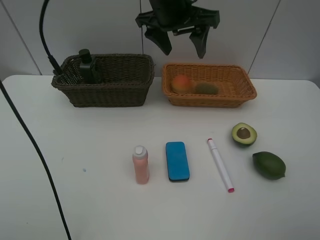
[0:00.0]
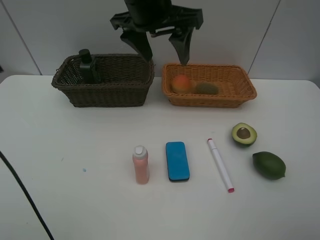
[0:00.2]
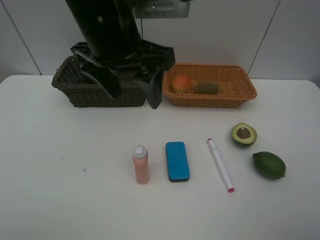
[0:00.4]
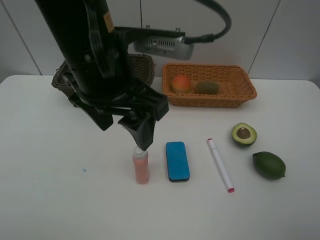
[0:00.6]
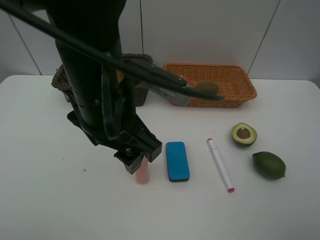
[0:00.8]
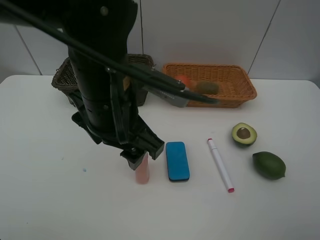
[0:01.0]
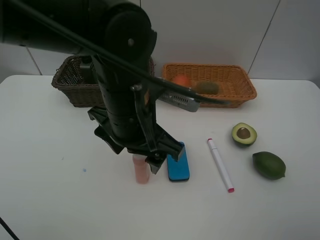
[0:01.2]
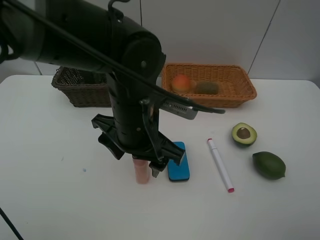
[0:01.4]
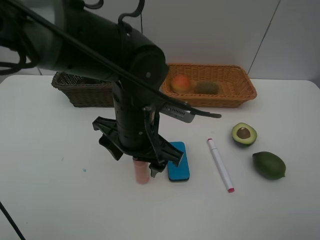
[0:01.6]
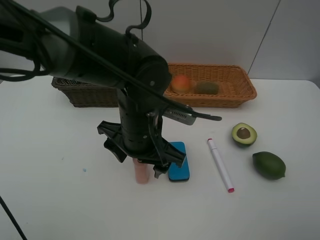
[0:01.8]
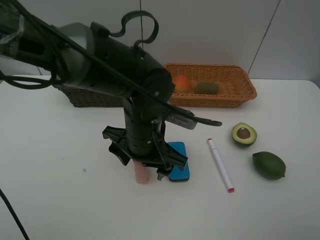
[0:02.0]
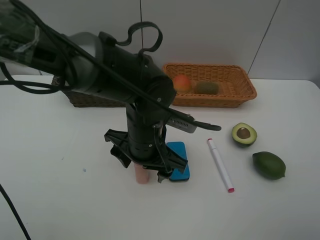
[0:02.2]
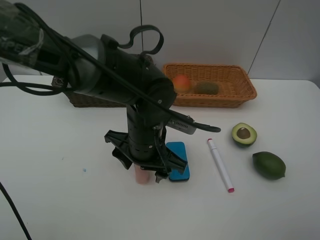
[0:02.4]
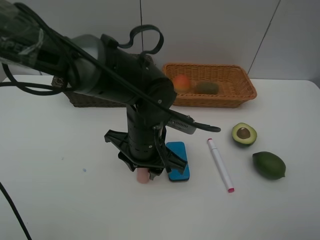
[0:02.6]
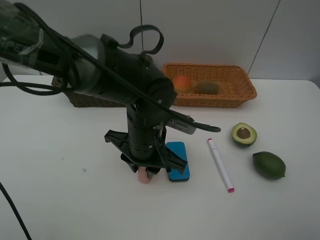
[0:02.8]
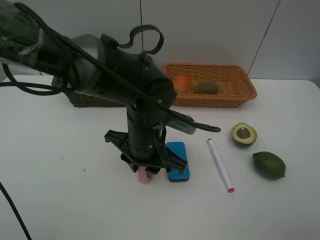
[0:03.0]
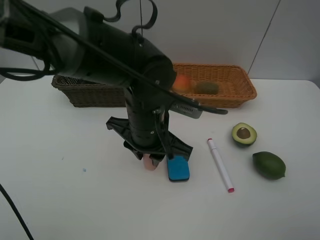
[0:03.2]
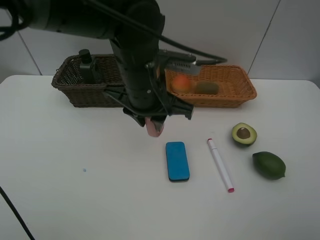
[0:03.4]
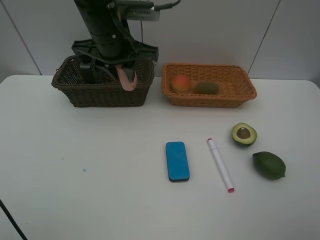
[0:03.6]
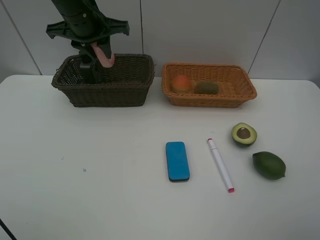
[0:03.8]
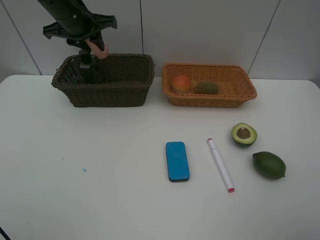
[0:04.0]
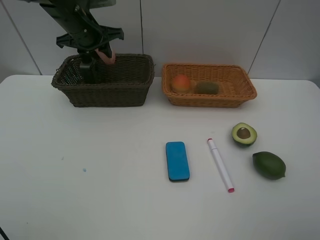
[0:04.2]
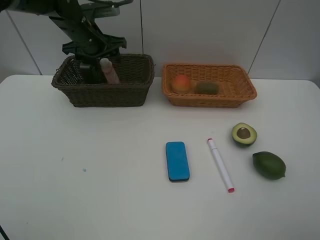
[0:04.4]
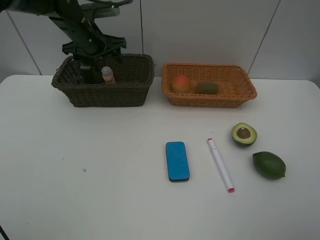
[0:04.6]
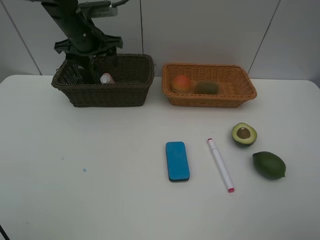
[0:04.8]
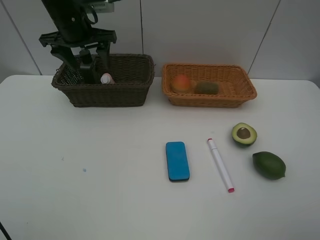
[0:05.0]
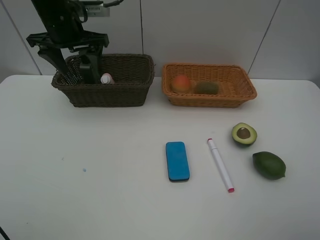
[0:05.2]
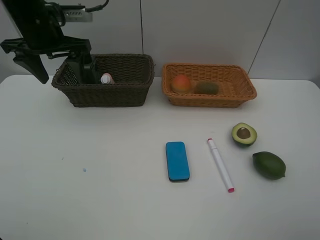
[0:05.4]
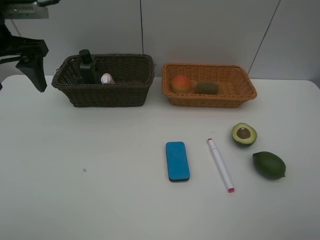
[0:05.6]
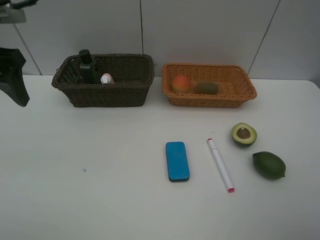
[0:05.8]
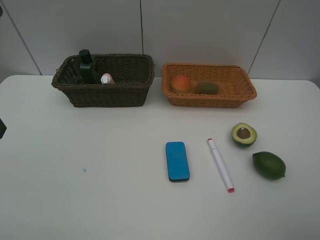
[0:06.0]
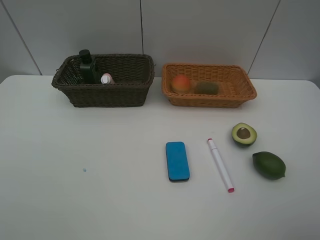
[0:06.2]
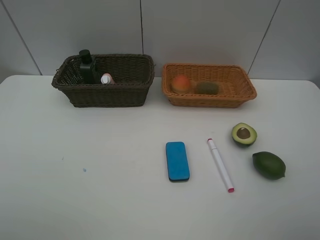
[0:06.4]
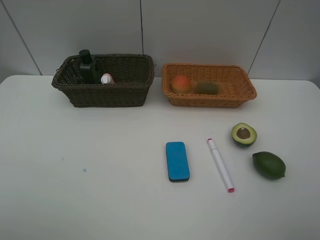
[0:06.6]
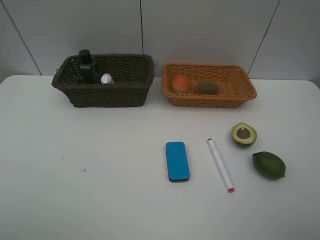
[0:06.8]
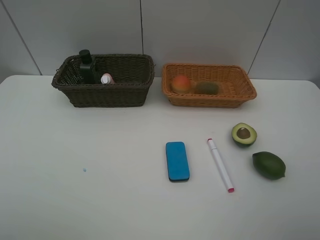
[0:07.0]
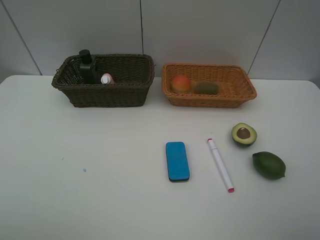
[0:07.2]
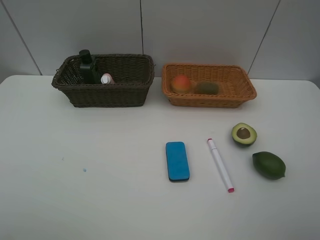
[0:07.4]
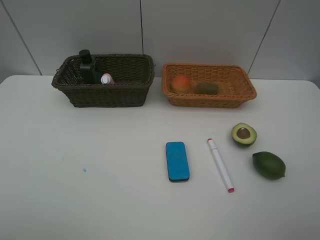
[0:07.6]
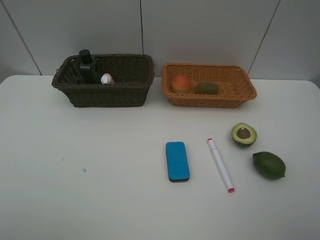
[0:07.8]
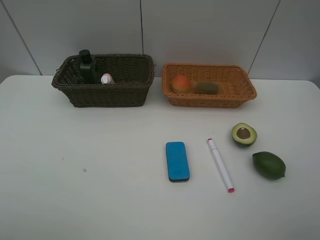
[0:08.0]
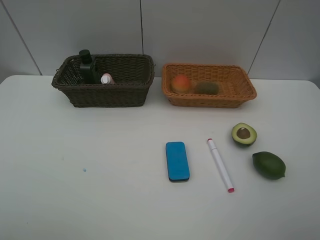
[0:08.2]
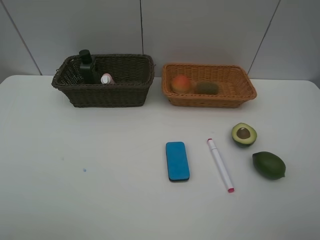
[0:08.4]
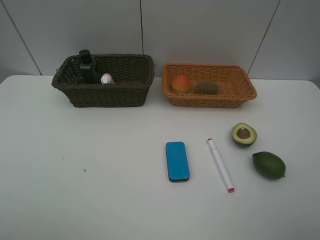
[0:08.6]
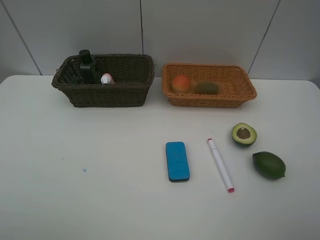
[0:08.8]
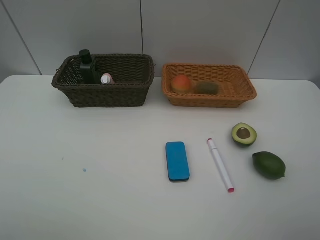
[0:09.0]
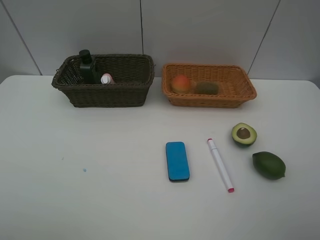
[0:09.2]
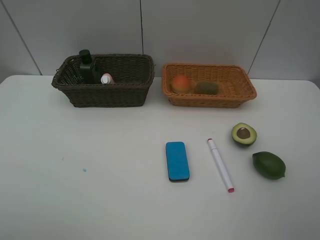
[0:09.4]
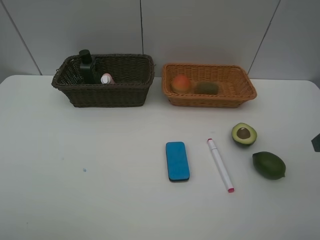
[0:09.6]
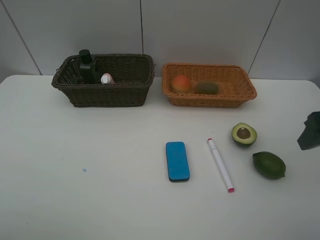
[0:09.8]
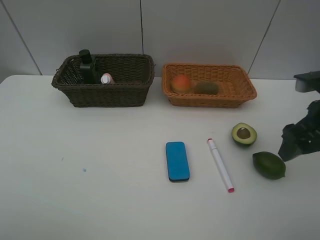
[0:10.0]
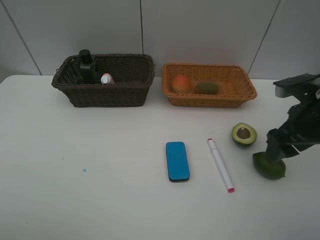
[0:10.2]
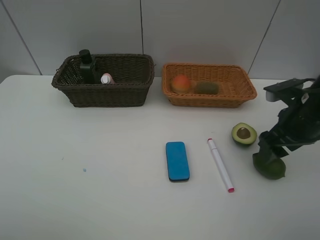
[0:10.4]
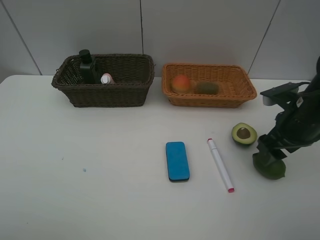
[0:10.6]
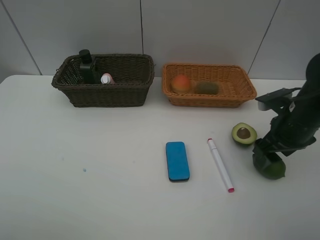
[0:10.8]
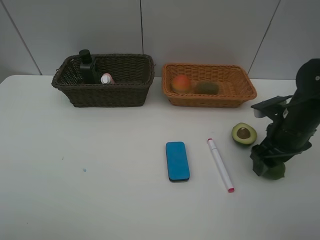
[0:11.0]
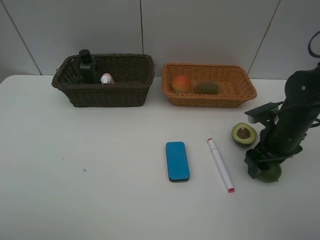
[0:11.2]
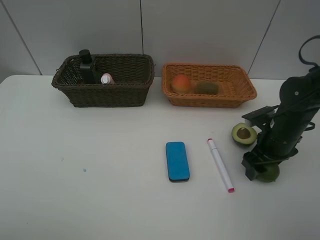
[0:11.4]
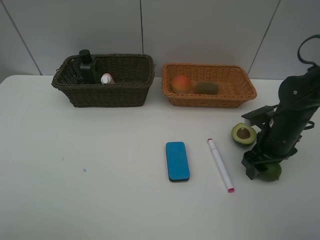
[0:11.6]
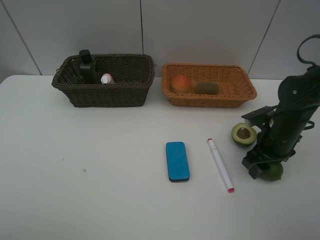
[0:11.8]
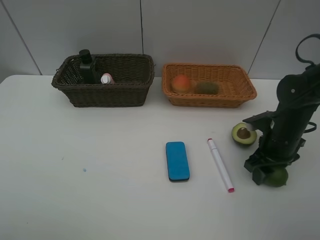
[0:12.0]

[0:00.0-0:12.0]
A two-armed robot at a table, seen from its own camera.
Task of the whole recording: Place multiple objects separately in different baskets.
Step, 0:00.0 to 0:03.2: Pick up the laundry detergent with left gripper.
Step, 0:03.4 to 0:04.6: Place the laundry detergent in the dark basket with left gripper.
0:00.0 to 0:01.6: The left gripper goes roughly 20 cm backward and downward.
0:01.6 to 0:03.0: The left gripper closes.
0:03.0 to 0:04.4: The left gripper is displaced forward and to the left by approximately 30 cm, and opens.
0:04.4 to 0:06.0: The left gripper is displaced backward by some 30 cm.
0:07.6 to 0:09.0: Neither gripper changes place.
0:09.0 to 0:10.4: The right gripper is displaced forward and downward by some 25 cm.
0:10.4 to 0:12.0: The right gripper goes approximately 10 cm downward.

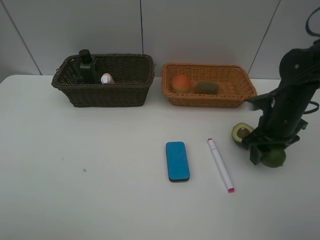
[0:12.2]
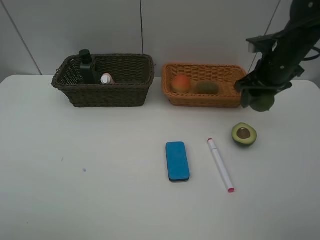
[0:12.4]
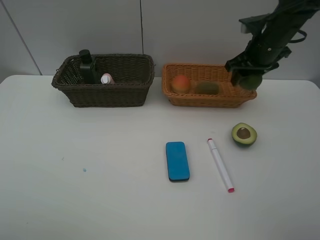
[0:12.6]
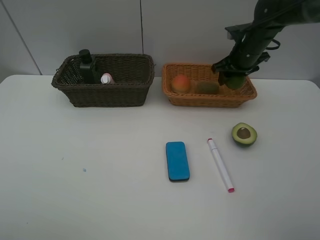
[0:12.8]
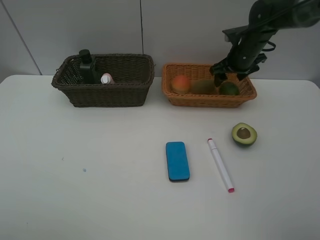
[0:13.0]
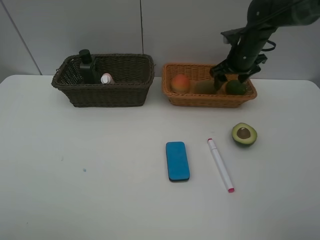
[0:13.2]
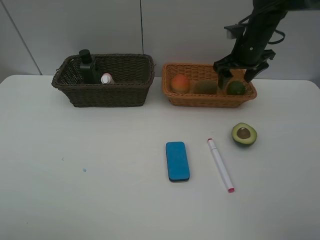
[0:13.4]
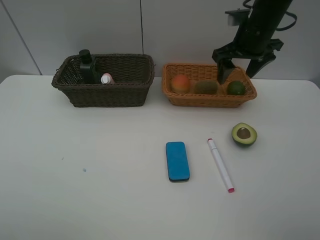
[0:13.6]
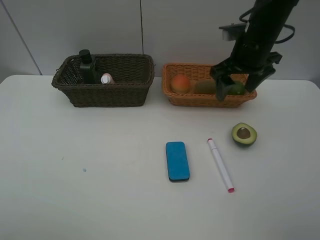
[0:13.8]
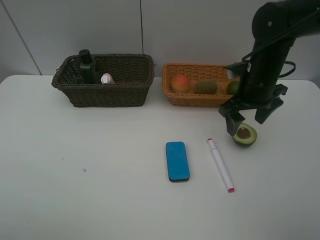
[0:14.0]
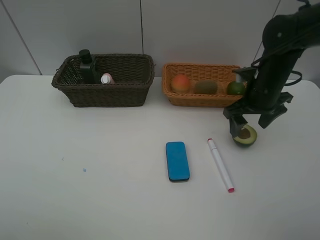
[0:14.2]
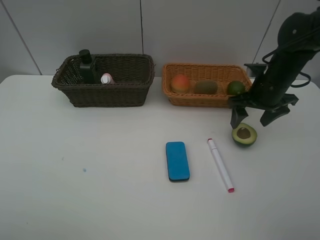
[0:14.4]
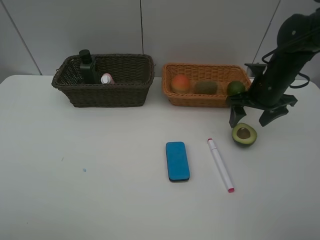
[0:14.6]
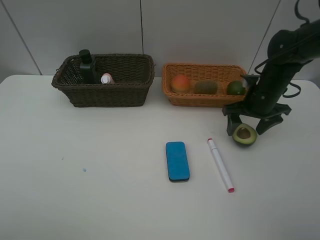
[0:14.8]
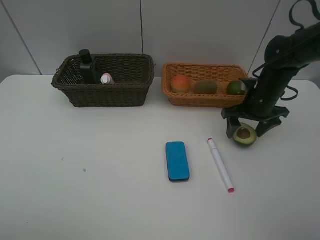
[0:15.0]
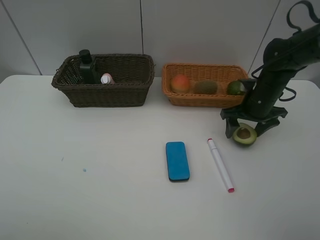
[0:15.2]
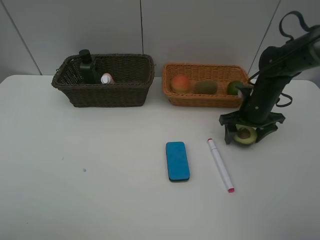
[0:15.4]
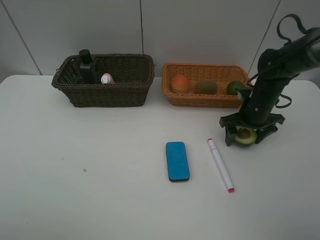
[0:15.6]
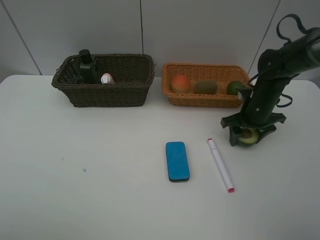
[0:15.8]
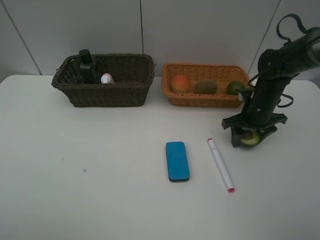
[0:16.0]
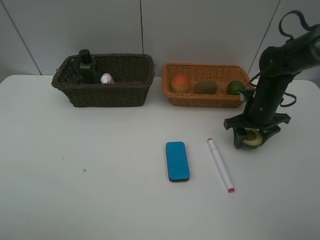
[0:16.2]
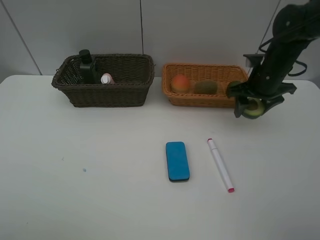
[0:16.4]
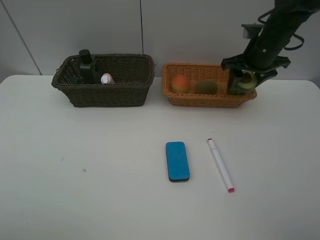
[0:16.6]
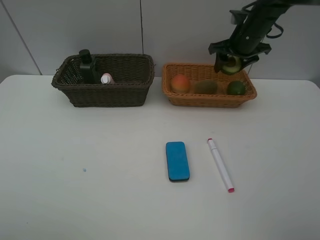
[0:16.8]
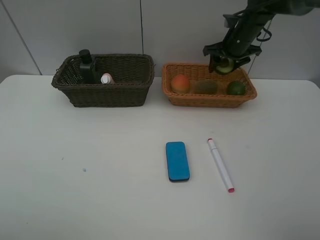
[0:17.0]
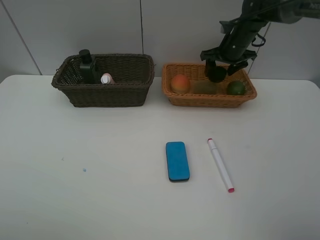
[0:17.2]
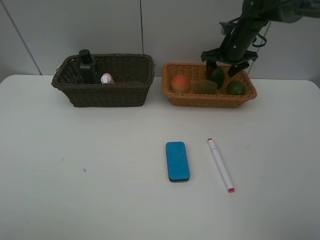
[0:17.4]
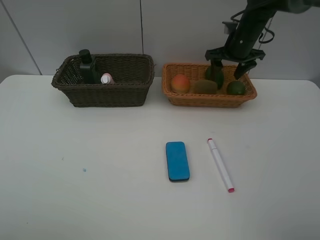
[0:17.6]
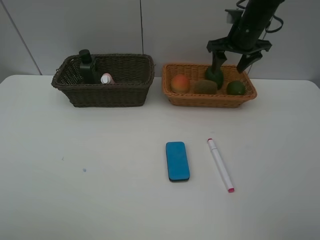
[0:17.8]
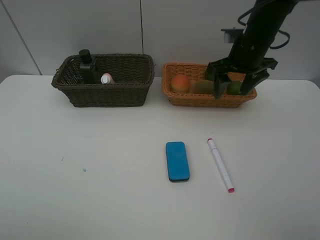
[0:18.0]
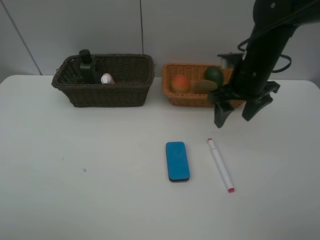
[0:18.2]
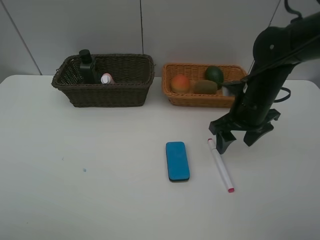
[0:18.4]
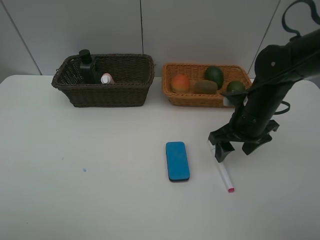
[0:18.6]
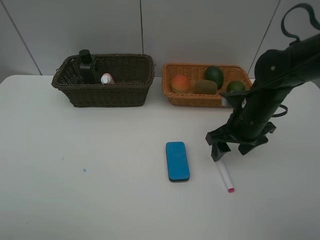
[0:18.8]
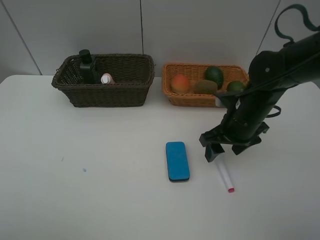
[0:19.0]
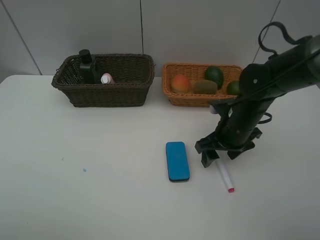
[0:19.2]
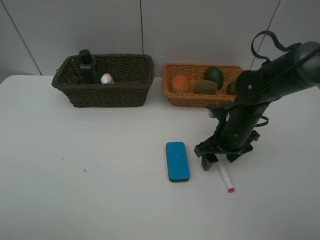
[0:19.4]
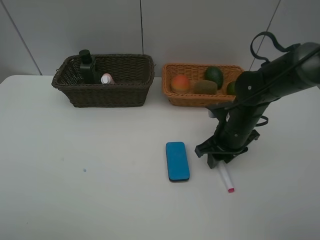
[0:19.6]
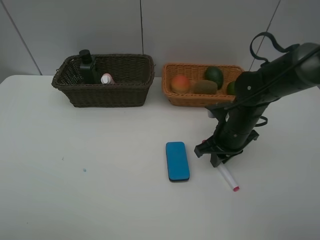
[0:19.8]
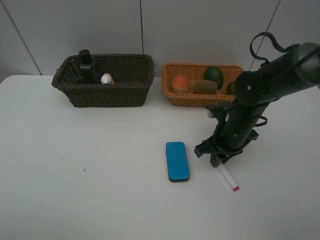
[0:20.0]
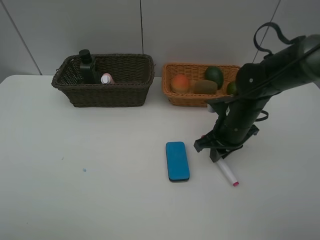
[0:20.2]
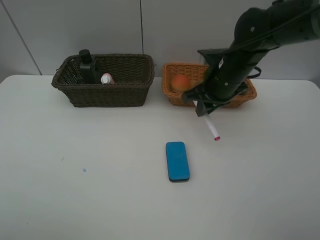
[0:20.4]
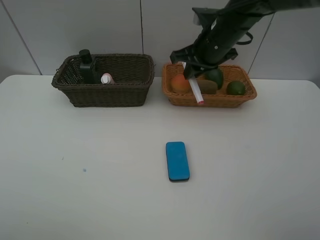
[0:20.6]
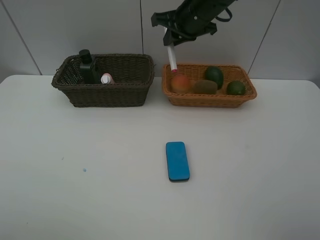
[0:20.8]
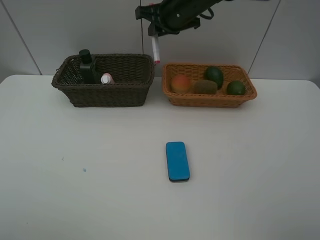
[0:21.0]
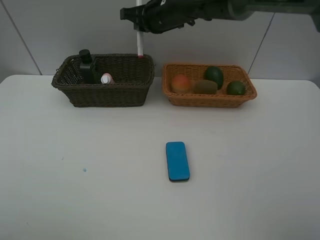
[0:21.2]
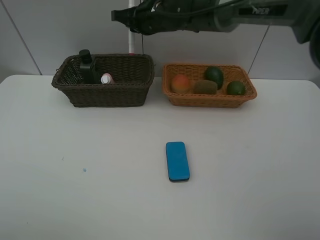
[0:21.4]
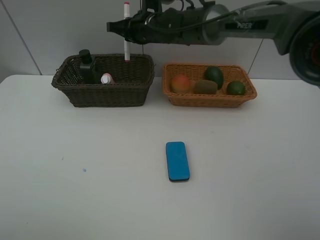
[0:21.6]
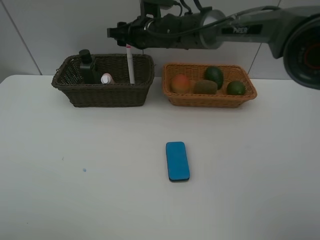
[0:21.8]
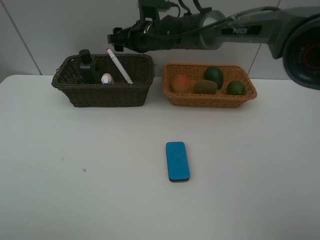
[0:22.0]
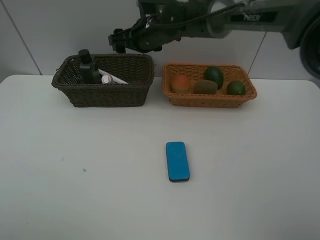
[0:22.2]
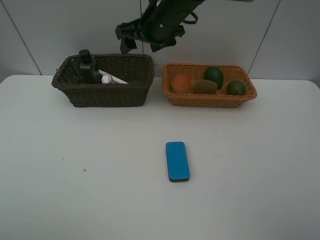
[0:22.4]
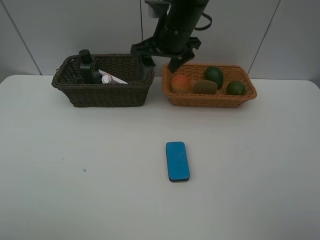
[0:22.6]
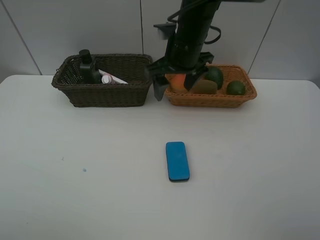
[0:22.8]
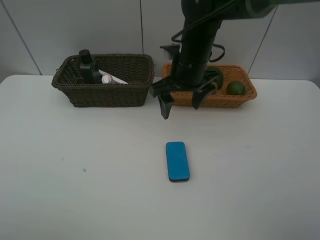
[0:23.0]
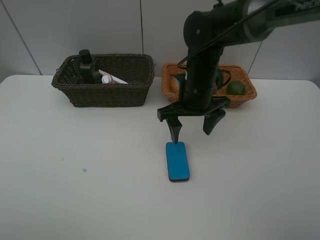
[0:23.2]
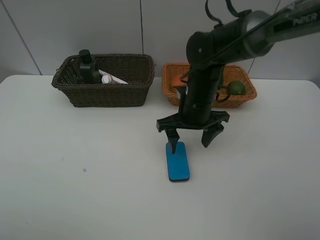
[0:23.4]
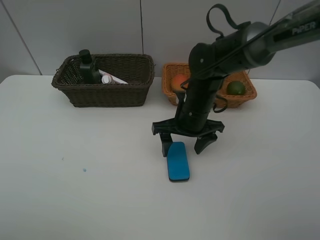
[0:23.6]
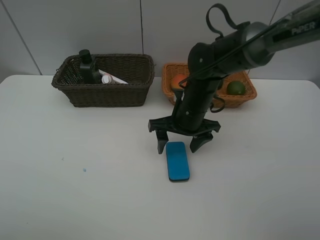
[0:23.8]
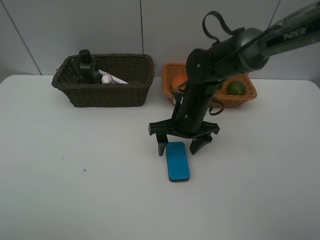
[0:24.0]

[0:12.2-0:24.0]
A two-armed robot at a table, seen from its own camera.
Task of the whole recording: Place multiple objects separately in different baskets.
Step, 0:12.2 to 0:13.4: Place the lime in the light basket with right gripper.
Step, 0:13.6 to 0:16.2: Pick up the avocado with right gripper.
Step, 0:16.4 to 0:17.6: Place the avocado in the light basket with right gripper.
Step, 0:17.8 to 0:20.2: Pick up the red marker with right gripper.
Step, 0:20.4 to 0:22.0: Place the red marker in the dark basket with right gripper.
0:12.2 to 0:13.6: The right gripper travels upward, forward and to the left by approximately 15 cm.
0:13.6 to 0:15.2: The right gripper moves downward, about 15 cm.
0:15.2 to 0:16.6: The right gripper goes some 10 cm upward and forward.
0:16.6 to 0:18.2: The right gripper heads backward, covering some 10 cm.
0:18.2 to 0:19.6: The right gripper is displaced downward by some 10 cm, and closes its fingers.
0:19.6 to 0:21.0: The right gripper moves upward, forward and to the left, roughly 25 cm.
0:21.0 to 0:22.6: The right gripper travels backward by approximately 5 cm, and opens up.
0:22.6 to 0:24.0: The right gripper is displaced downward and backward by approximately 15 cm.
